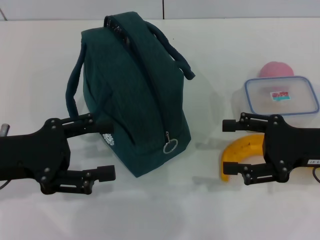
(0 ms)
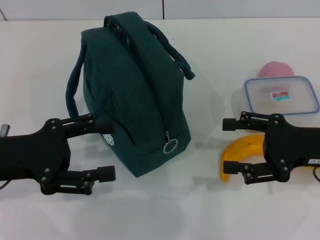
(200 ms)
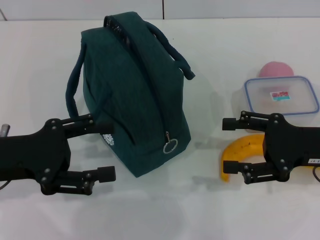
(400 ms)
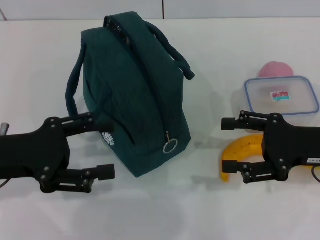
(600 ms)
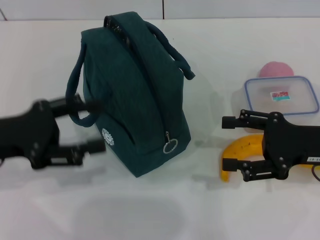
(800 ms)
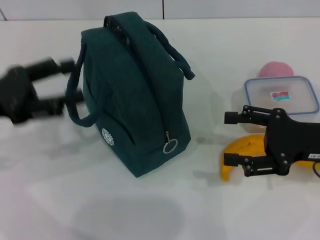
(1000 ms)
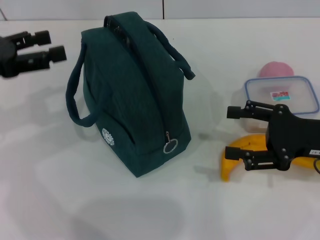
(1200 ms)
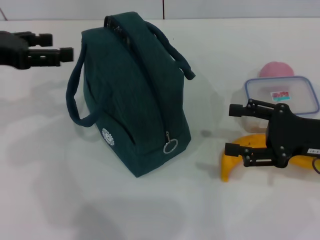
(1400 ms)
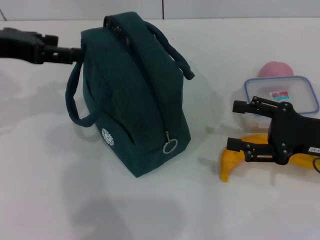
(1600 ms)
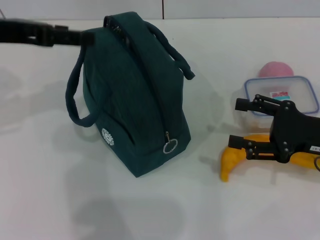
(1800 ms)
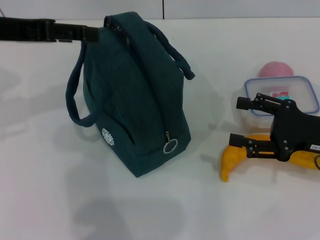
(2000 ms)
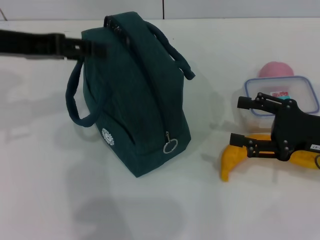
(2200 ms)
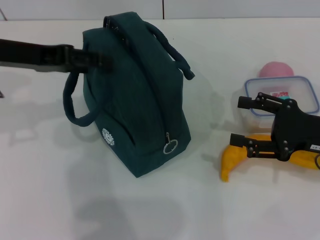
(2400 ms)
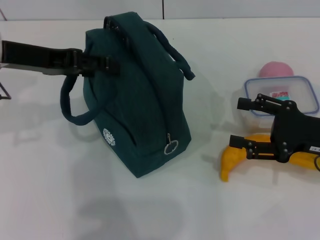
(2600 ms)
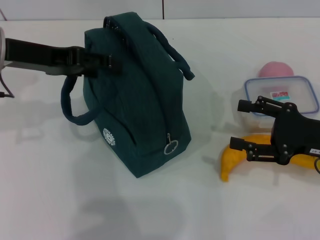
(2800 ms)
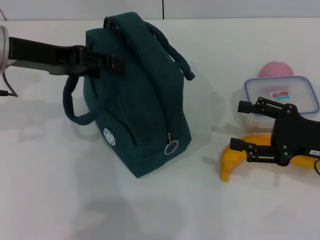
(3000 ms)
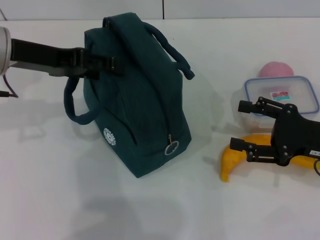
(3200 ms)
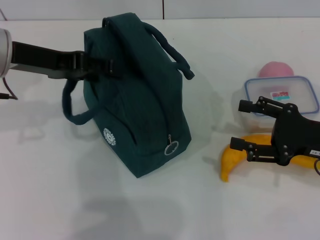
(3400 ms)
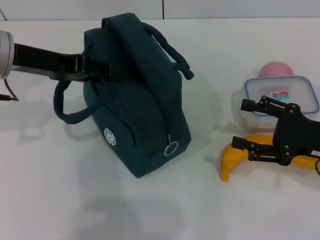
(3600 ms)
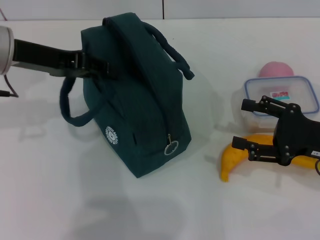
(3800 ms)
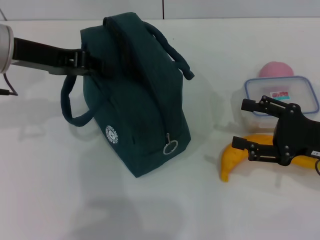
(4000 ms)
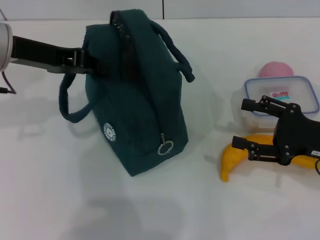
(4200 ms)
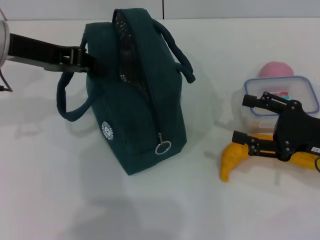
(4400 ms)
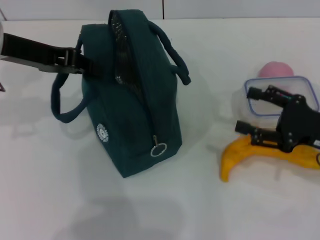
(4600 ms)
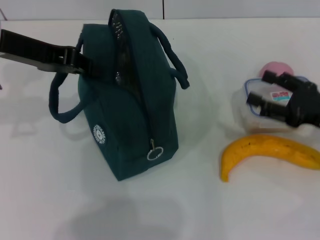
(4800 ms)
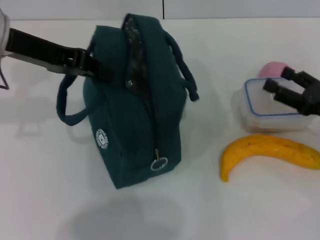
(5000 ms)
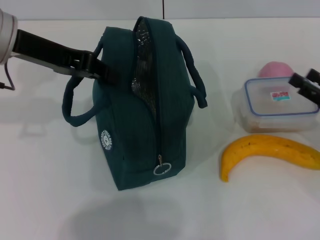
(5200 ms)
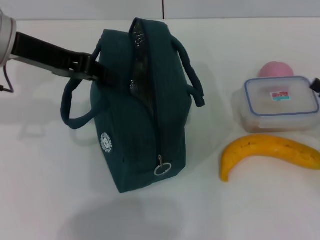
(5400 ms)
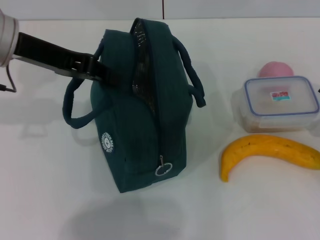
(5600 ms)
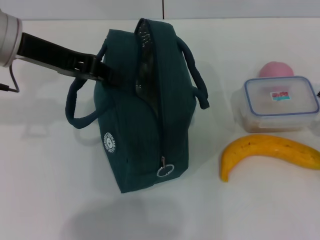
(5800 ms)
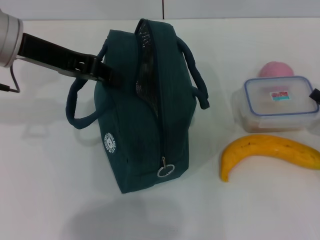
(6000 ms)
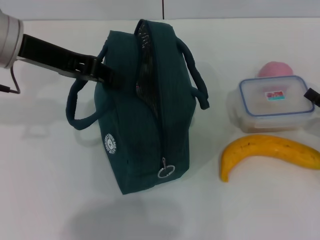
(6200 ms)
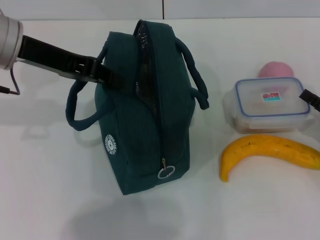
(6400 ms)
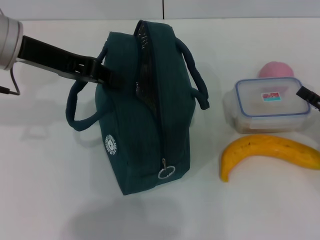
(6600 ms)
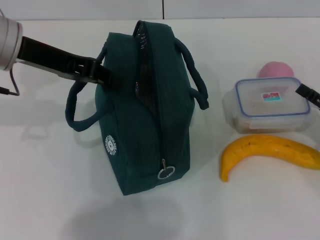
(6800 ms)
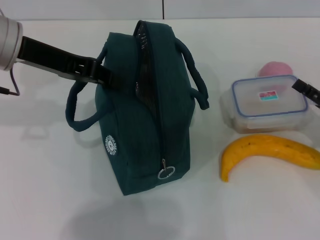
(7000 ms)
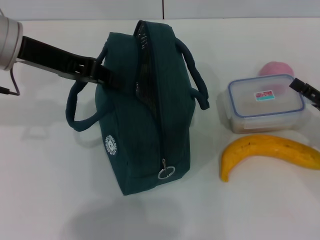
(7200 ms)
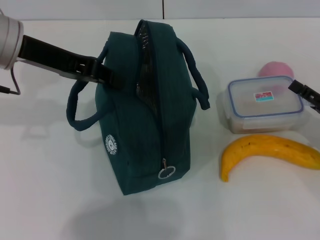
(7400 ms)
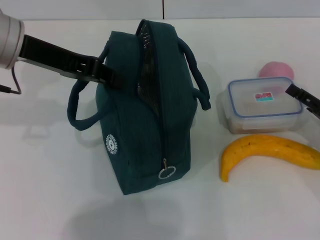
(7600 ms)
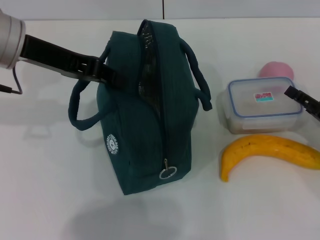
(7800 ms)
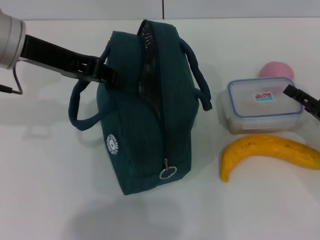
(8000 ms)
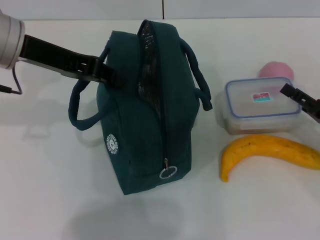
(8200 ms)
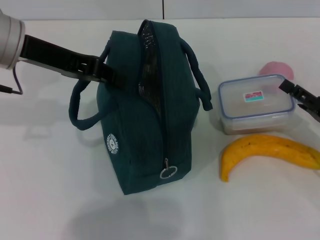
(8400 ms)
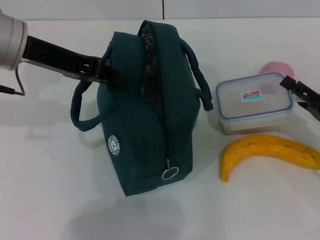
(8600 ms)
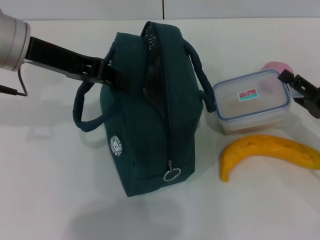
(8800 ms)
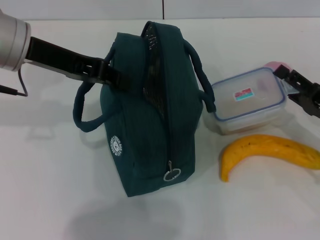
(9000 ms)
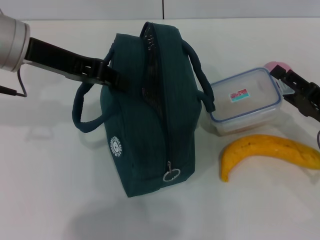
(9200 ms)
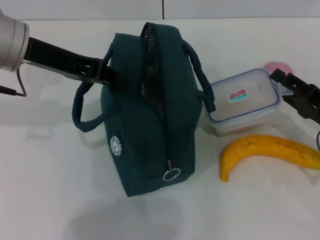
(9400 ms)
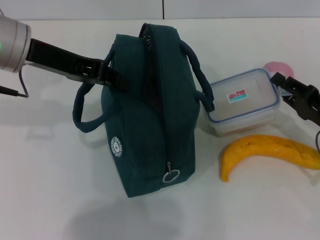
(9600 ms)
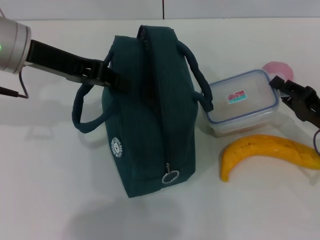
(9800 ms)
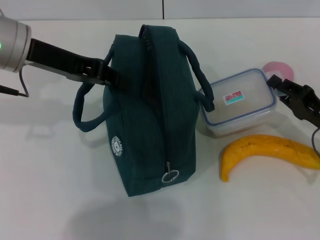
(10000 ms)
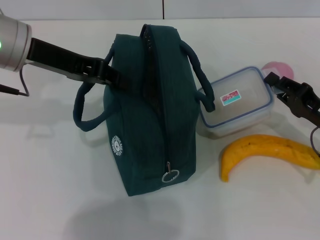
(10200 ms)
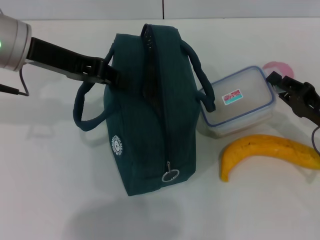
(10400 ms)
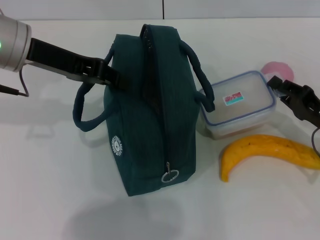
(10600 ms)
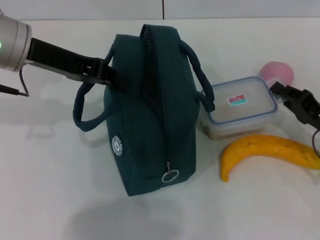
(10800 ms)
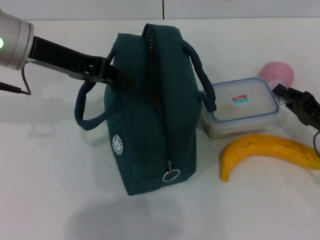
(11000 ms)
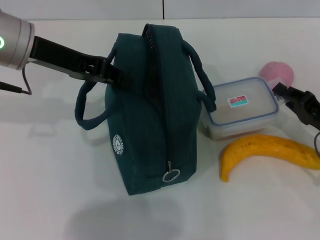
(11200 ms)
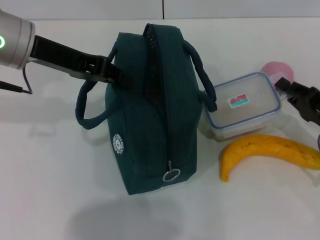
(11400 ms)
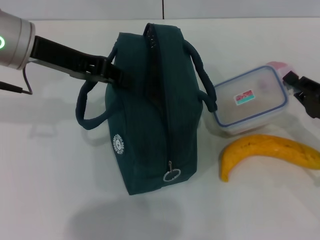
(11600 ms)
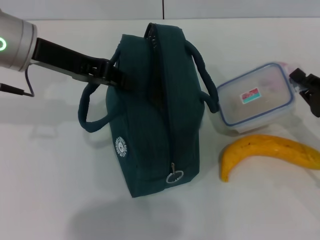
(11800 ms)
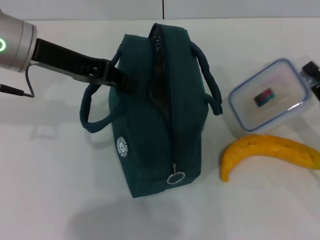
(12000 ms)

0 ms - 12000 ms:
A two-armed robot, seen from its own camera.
Step, 0 ms - 4800 ms: Hold the lunch bag with your left hand.
Step, 5200 ms - 10000 ms: Pick up the lunch box with your right hand.
0 ms - 1600 ms: The left gripper is displaced upward and forward by some 15 cm.
3000 ms - 4400 ms: The left gripper closes its fingers.
4400 ms - 6000 ms: The right gripper heads to the right and downward, covering approximately 10 cm.
6000 ms - 7600 ms: The grippers stay close to where they were, moving slightly.
7600 ms - 9000 ms: The grippers move only a little.
9000 ms - 10400 ms: The right gripper closes its fingers.
10400 ms - 12000 ms: The grippers stay close to where they were, moving slightly.

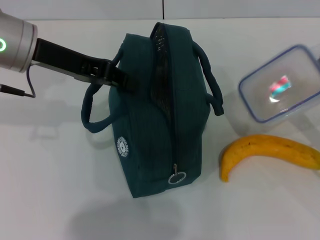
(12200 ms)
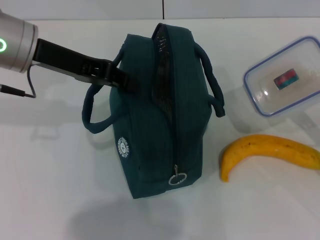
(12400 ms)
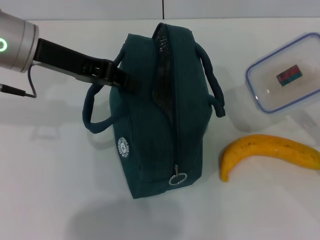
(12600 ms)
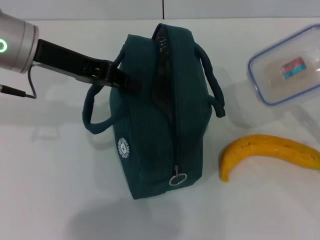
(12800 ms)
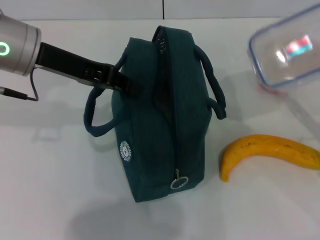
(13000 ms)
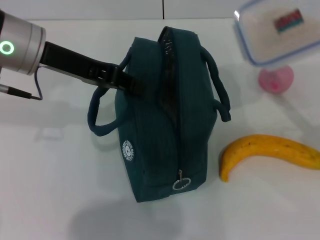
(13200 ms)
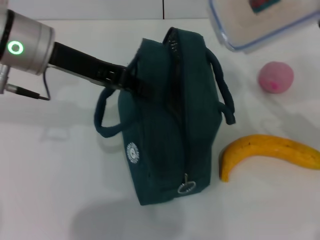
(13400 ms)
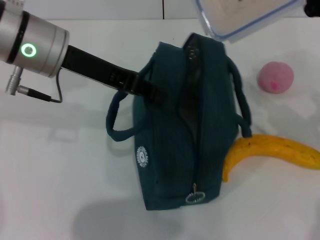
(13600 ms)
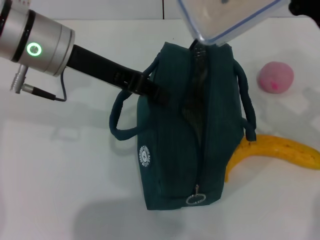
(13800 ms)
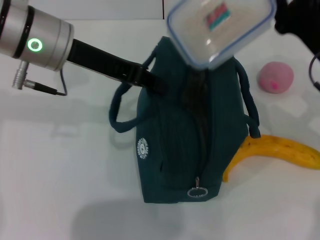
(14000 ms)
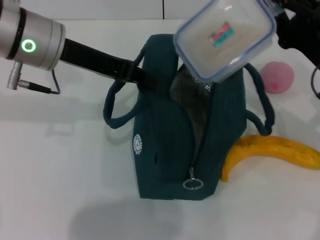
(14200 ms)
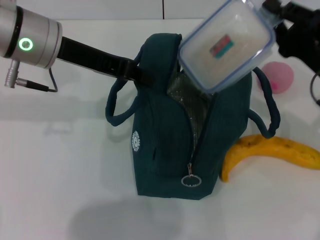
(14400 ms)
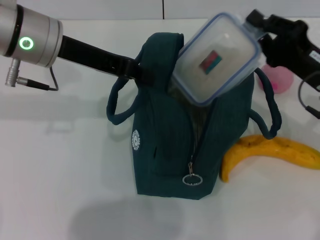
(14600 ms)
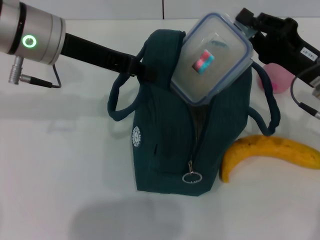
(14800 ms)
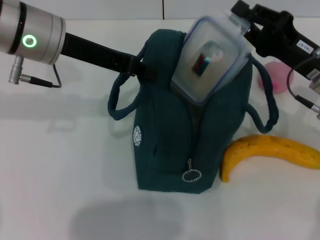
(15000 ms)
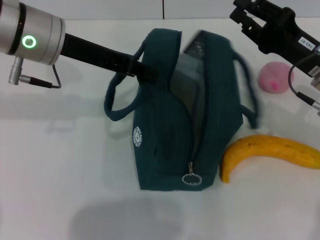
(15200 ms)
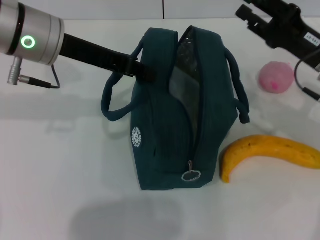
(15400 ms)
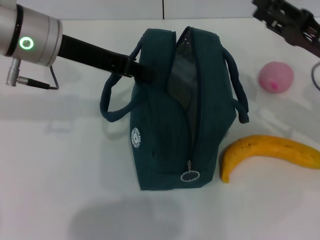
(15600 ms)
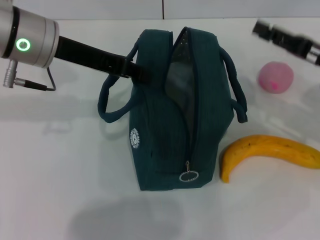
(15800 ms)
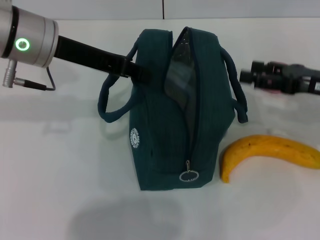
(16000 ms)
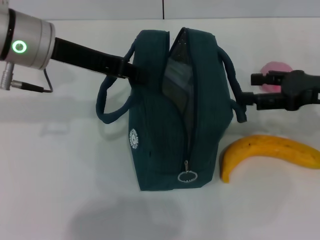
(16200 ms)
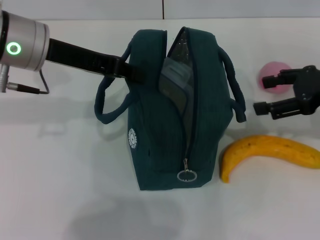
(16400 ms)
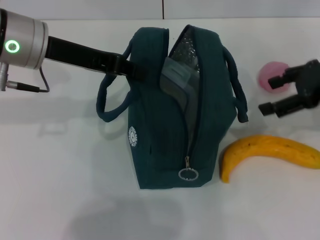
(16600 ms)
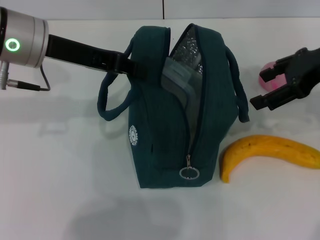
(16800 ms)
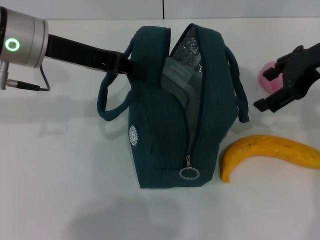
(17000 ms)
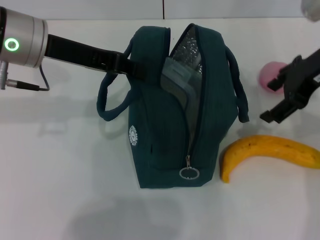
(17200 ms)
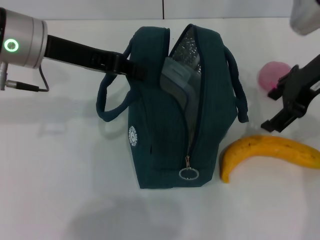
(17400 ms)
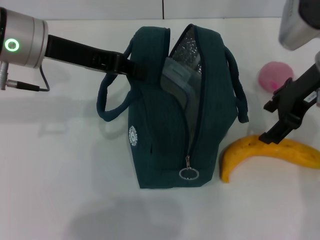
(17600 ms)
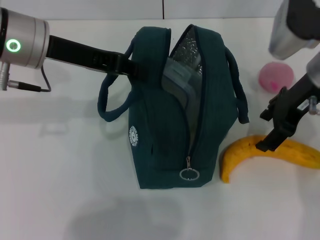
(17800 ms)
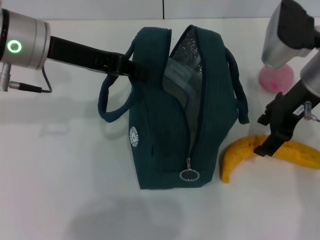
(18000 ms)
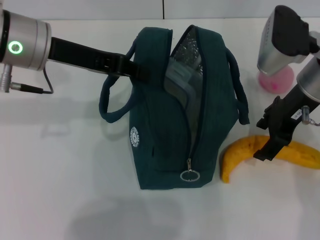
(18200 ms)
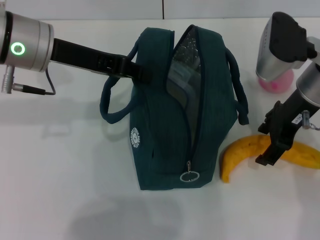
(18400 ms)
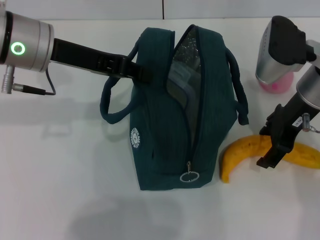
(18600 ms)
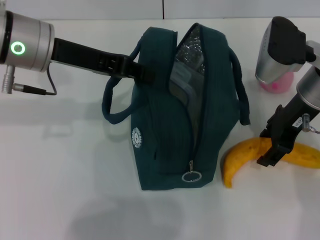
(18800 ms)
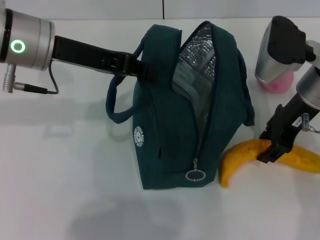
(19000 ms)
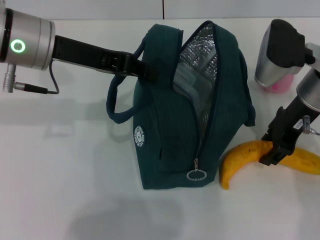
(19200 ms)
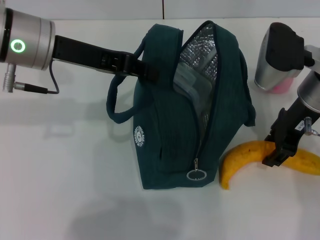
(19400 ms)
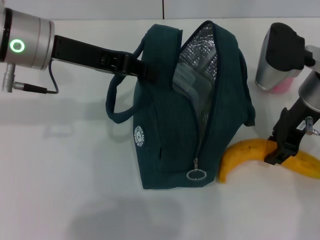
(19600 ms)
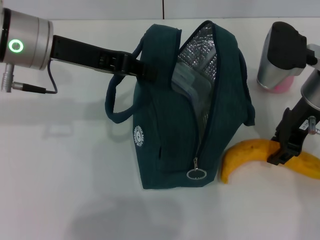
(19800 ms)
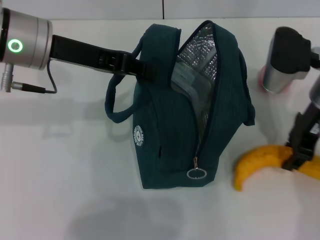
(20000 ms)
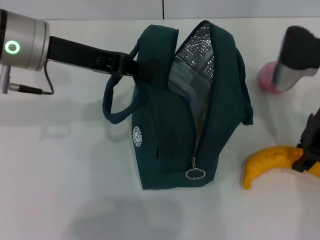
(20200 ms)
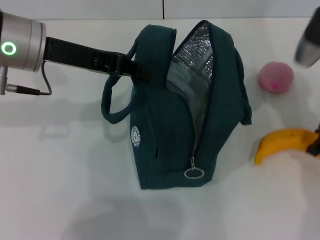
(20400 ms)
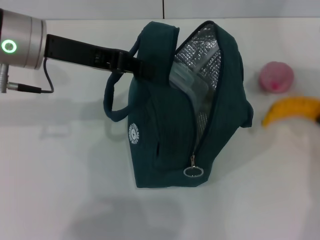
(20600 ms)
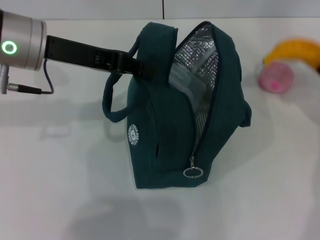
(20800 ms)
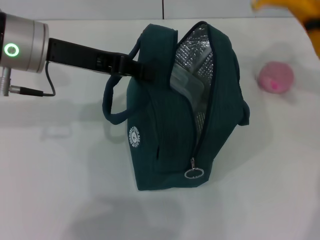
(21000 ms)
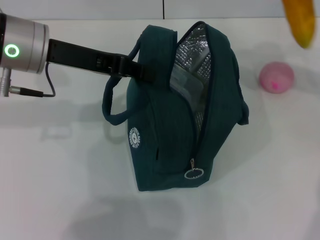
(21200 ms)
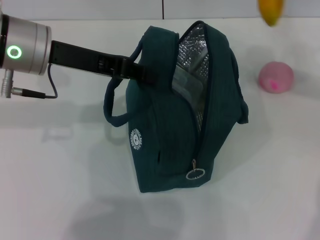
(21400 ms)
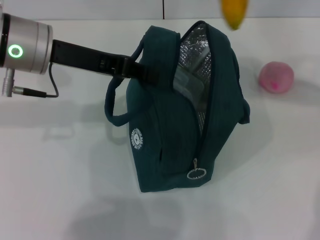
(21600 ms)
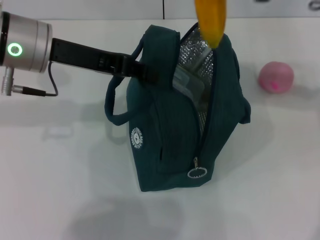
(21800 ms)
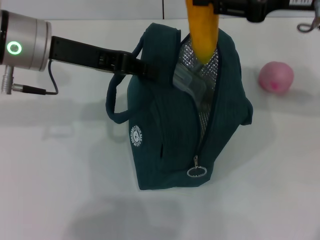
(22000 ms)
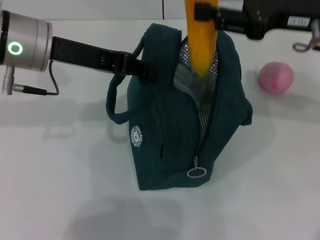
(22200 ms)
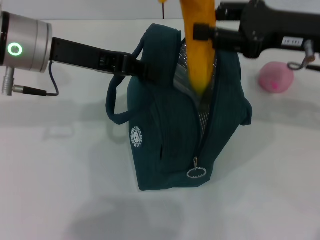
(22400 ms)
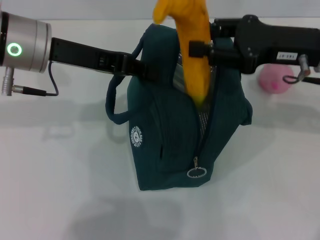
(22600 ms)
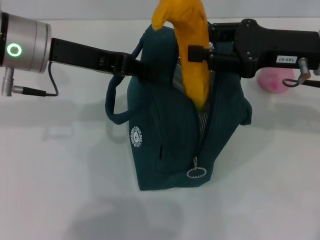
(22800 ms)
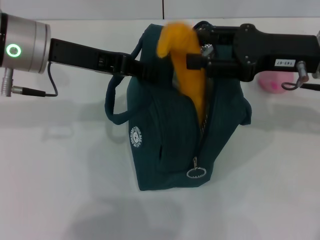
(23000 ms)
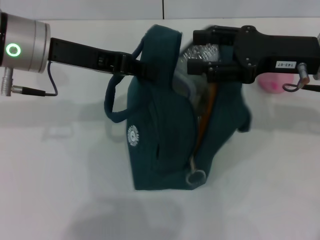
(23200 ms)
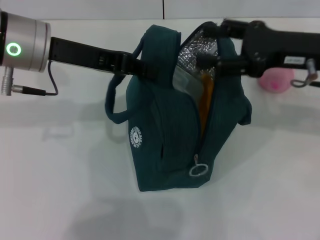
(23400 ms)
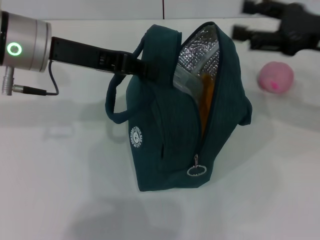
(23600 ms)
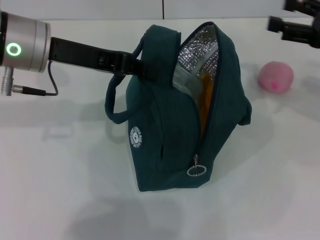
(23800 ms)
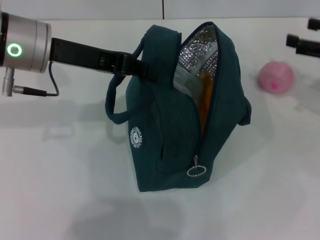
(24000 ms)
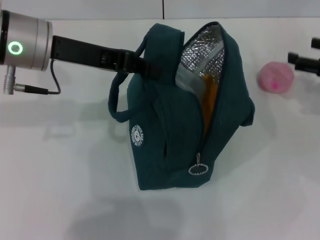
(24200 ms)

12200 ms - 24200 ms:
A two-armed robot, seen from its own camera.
Step, 12200 ms - 15000 ms: Place the lunch box into the lunch bag with your right hand.
Step, 15400 ms - 19400 ms: Take the banana with your right hand.
Step, 19800 ms - 23400 ms: Put the banana into the lunch bag with your right hand.
12200 ms - 13800 ms: The right gripper goes approximately 15 cm to the left, upward and forward.
15200 ms - 16600 ms: The right gripper heads upward, covering some 10 cm, and opens.
16600 ms - 18200 ms: The right gripper moves to the left, approximately 10 cm.
18200 ms - 19800 ms: The right gripper closes.
19800 ms - 21200 ms: The right gripper moves upward and to the right, some 20 cm.
21200 ms - 22600 ms: The right gripper is displaced downward and to the left by about 15 cm.
22600 ms - 24200 ms: The right gripper travels to the right and downward by roughly 15 cm, and opens its fingers.
